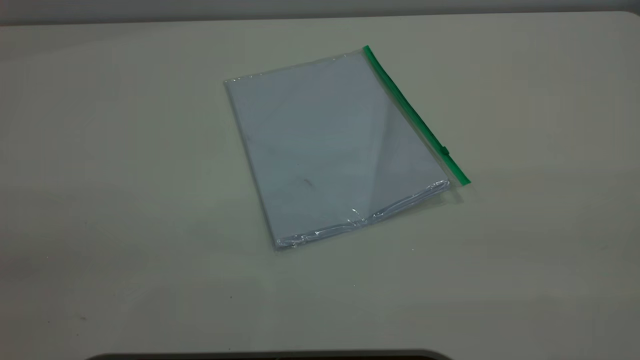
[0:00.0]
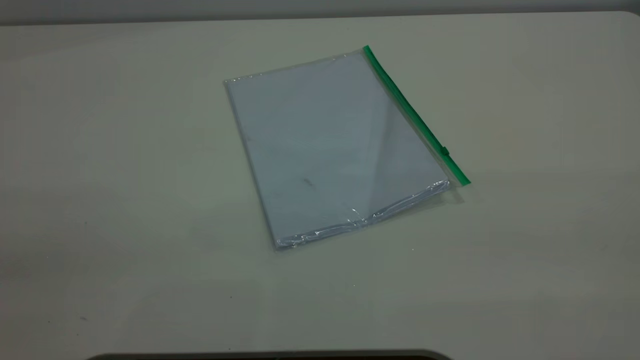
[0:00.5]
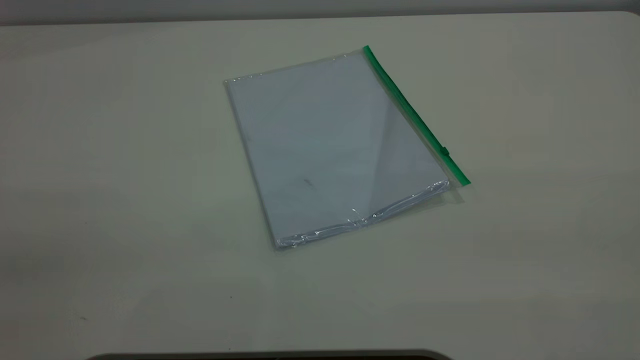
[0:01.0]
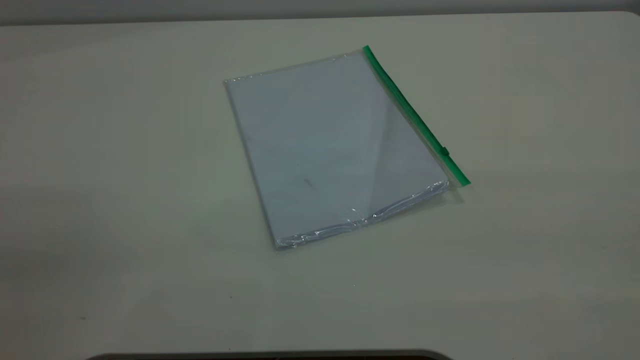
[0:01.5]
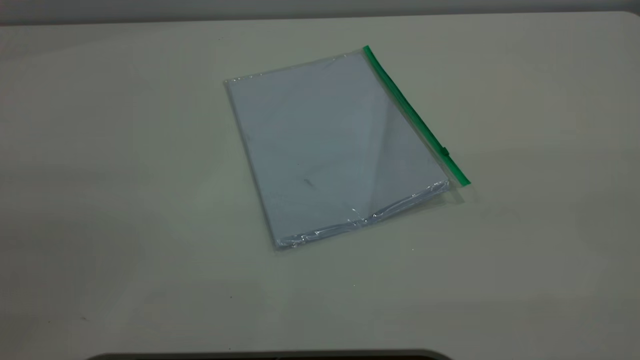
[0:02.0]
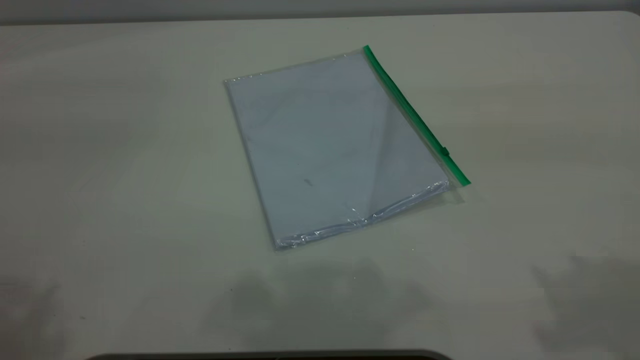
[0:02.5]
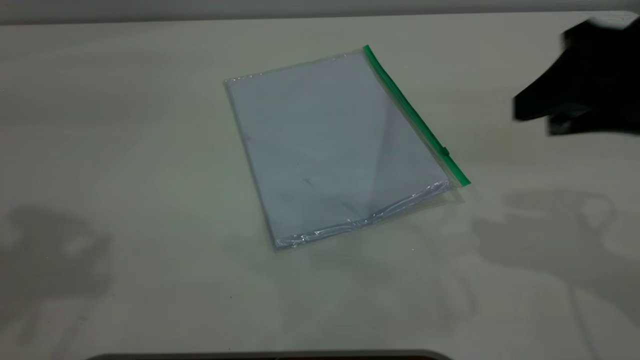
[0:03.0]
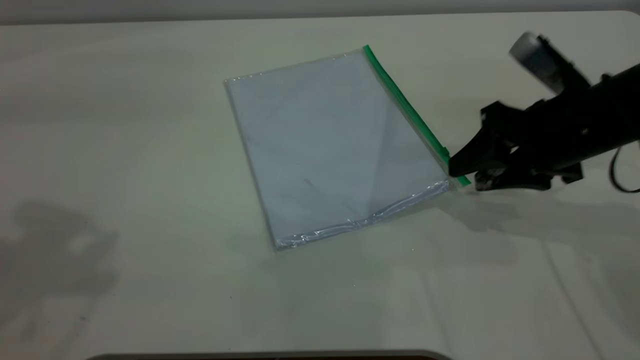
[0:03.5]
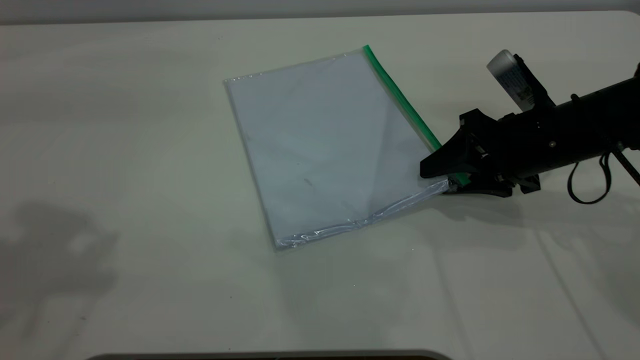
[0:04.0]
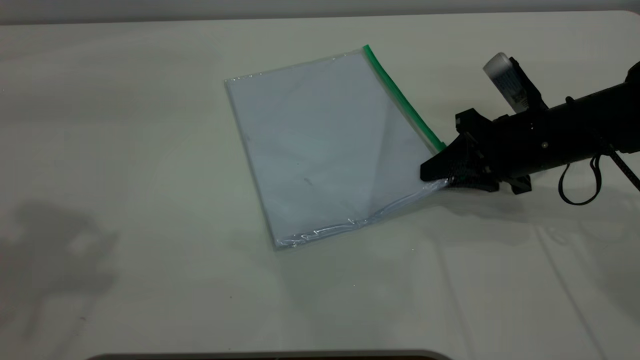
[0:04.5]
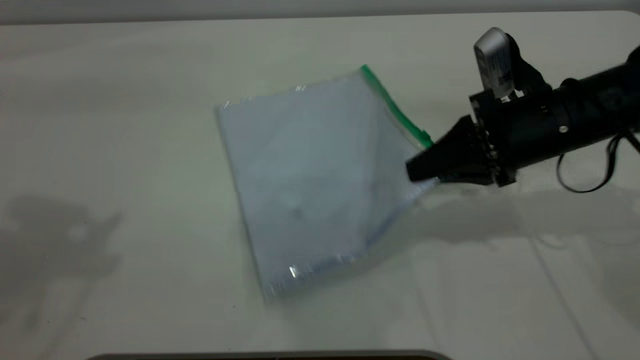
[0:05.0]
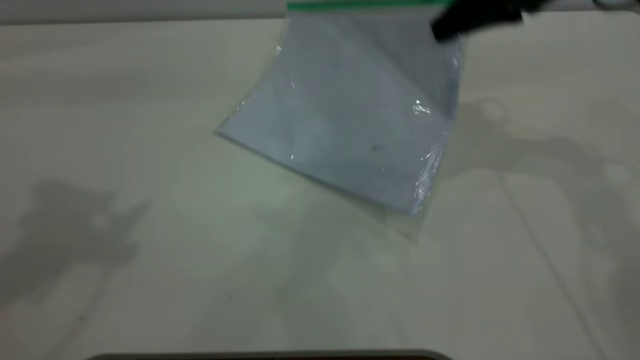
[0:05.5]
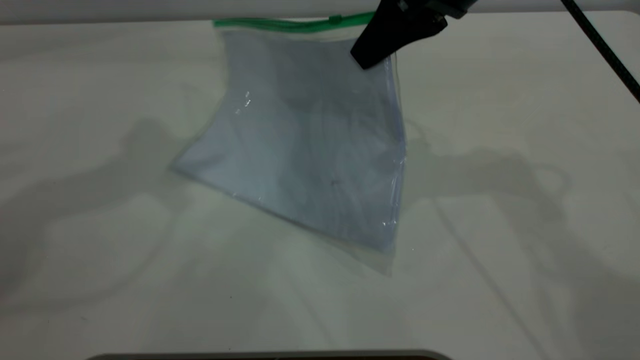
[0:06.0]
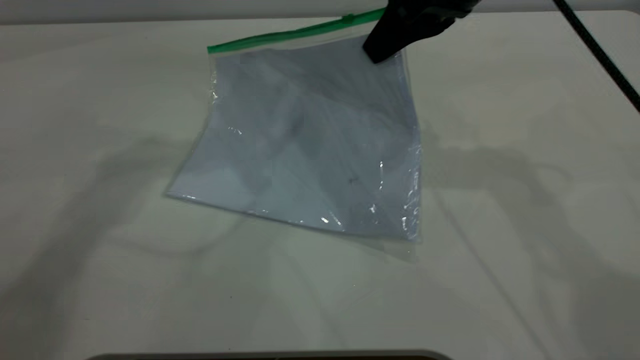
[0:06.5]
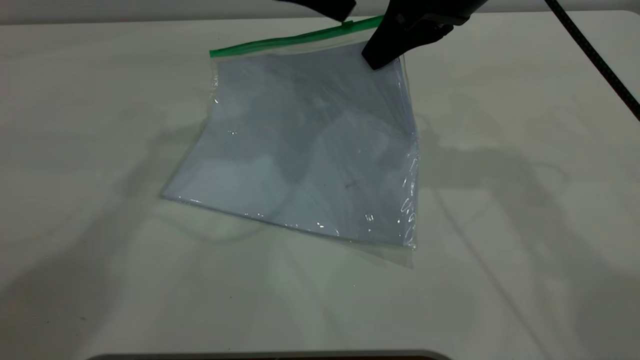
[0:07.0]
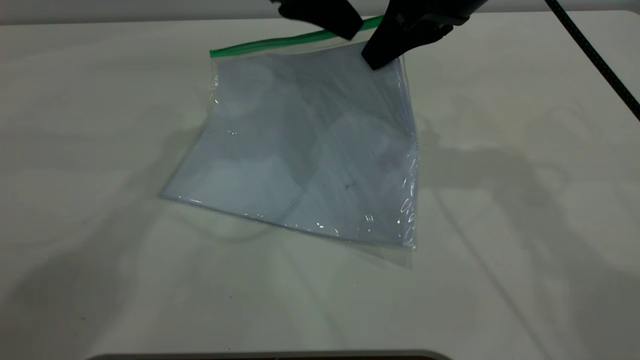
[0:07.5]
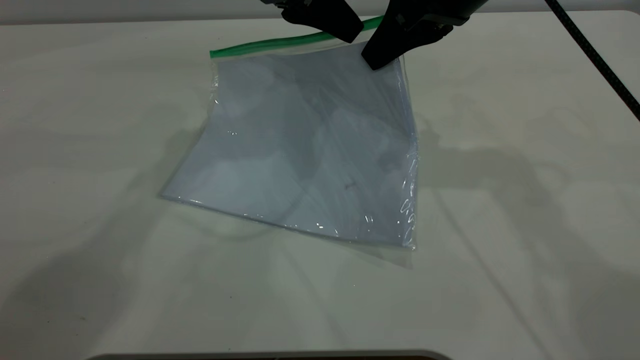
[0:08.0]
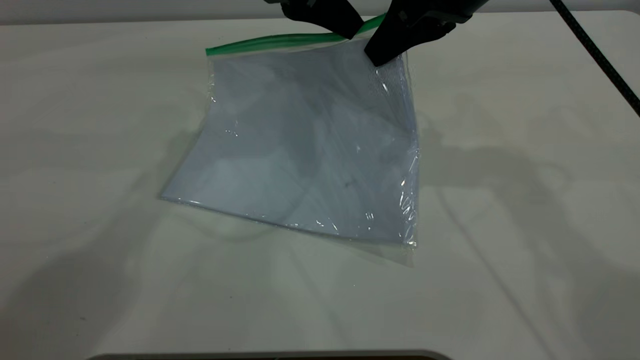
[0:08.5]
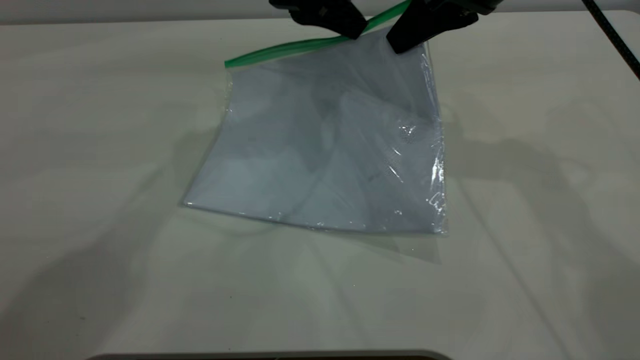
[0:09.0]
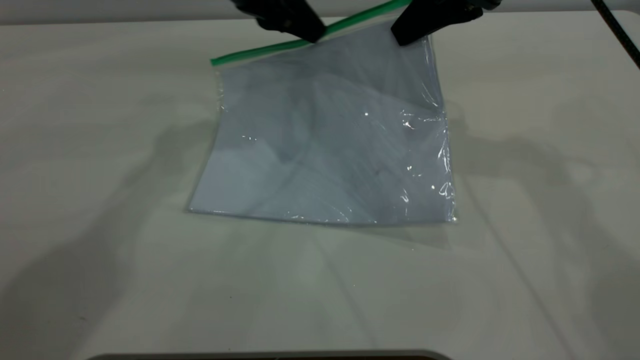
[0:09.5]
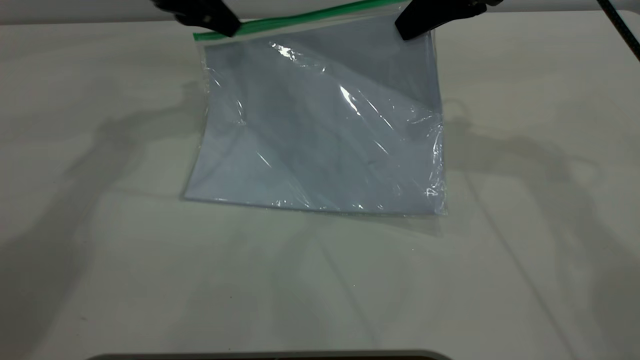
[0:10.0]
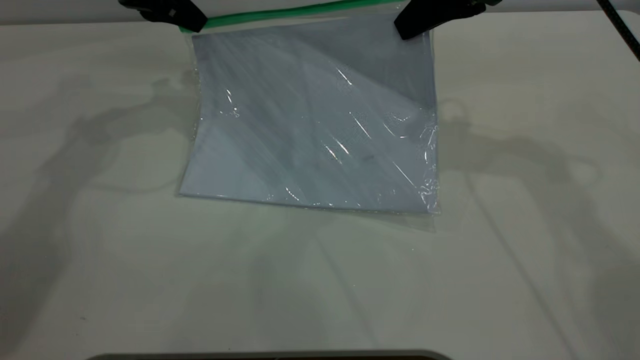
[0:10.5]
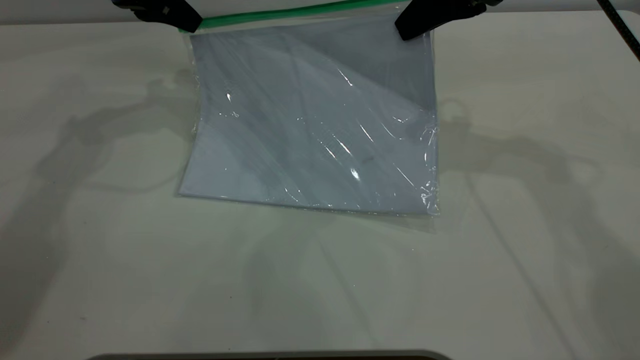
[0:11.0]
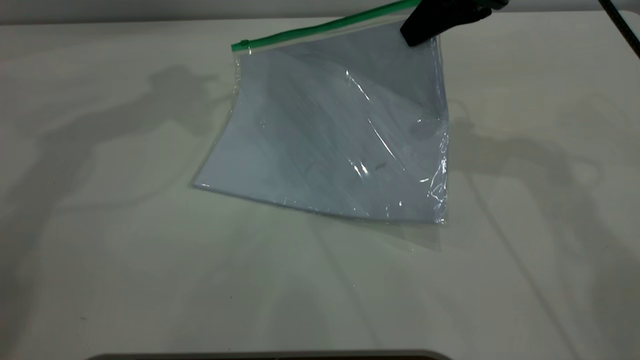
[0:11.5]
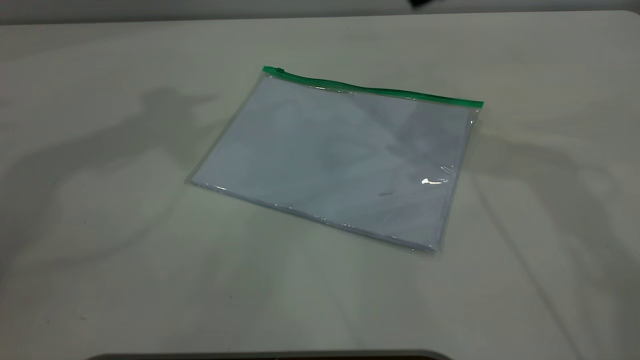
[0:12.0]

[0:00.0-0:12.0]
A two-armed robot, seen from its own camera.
Step, 0:00.0 to 0:04.5: Pick up the transparent plastic bag with the right gripper.
Step, 0:05.0 to 0:11.0: Pulling up the zipper on the transparent plastic bag with the left gripper to close it.
0:02.0 to 0:04.0: The right gripper travels downward and forward by about 40 cm.
0:04.0 to 0:06.0: The right gripper moves upward and to the left, roughly 20 cm, and closes up; the left gripper shifts roughly 15 cm forward and to the right.
0:06.0 to 0:08.0: The left gripper travels to the right, downward and forward by roughly 20 cm, and closes up.
0:08.0 to 0:10.0: The left gripper is displaced to the left and forward by roughly 15 cm, and closes its fingers.
0:10.0 to 0:12.0: The right gripper shifts some 5 cm upward, and opens up. The left gripper shifts about 25 cm upward, and opens.

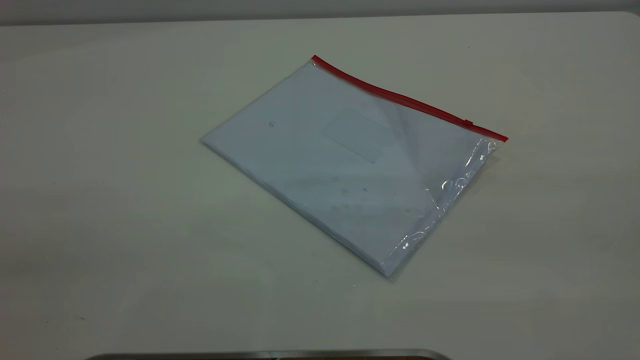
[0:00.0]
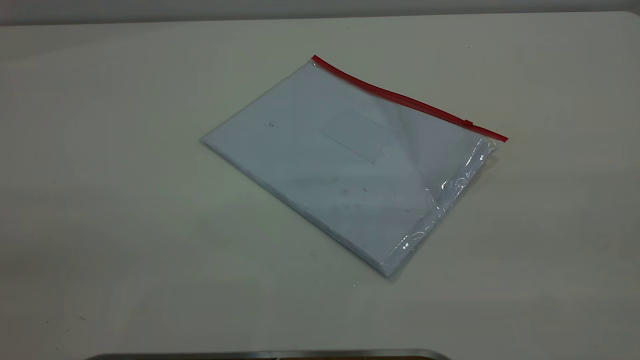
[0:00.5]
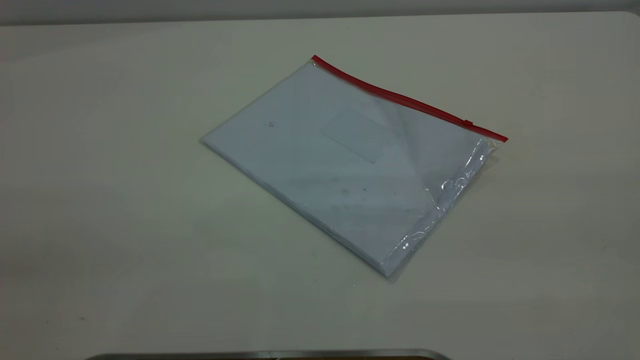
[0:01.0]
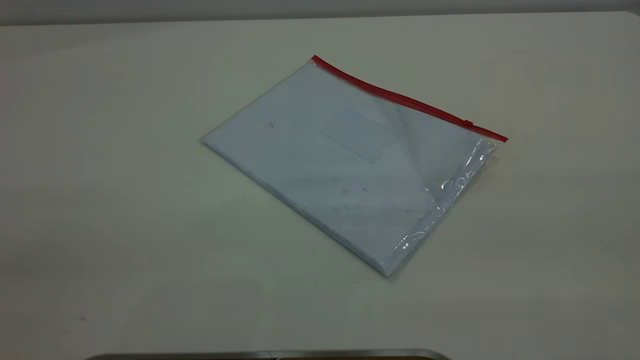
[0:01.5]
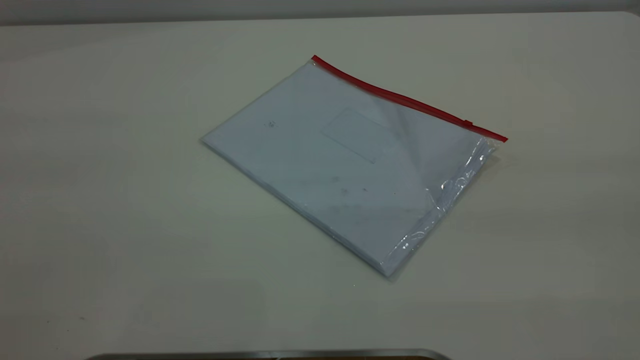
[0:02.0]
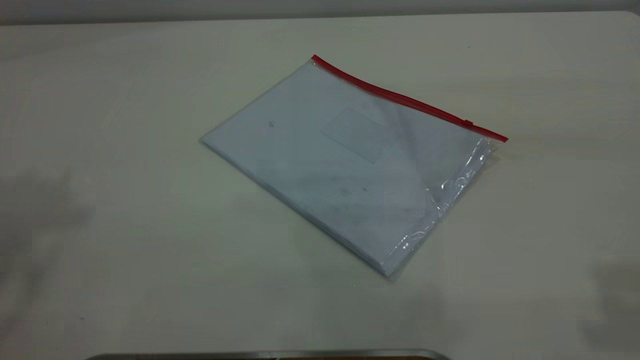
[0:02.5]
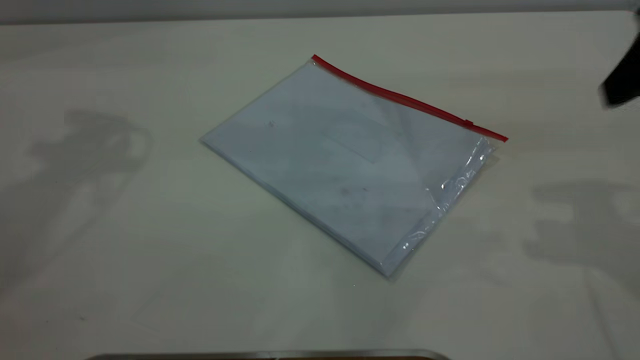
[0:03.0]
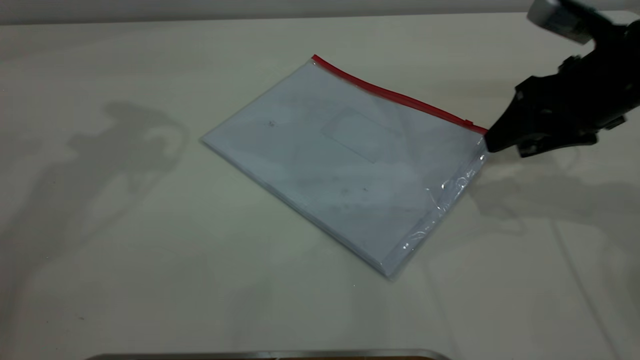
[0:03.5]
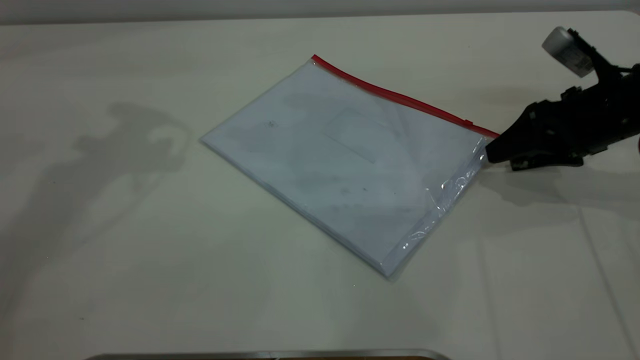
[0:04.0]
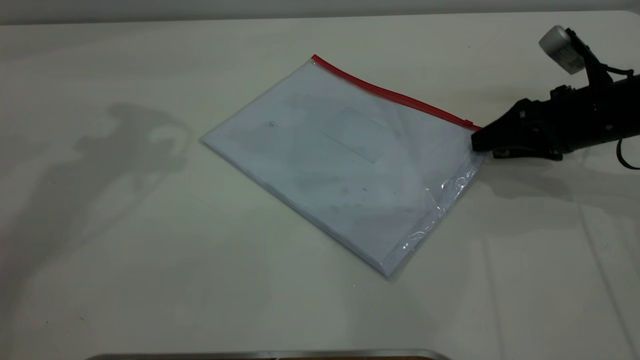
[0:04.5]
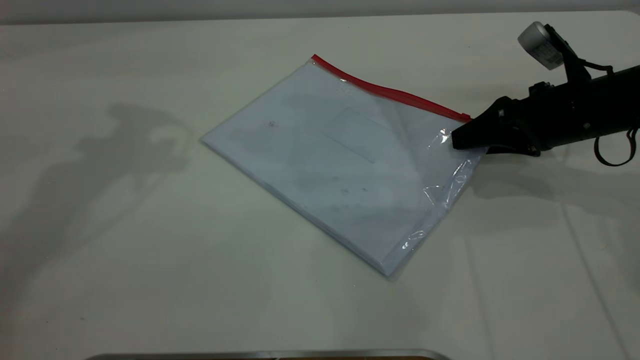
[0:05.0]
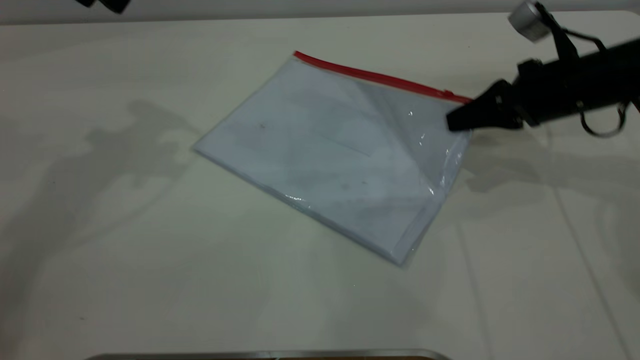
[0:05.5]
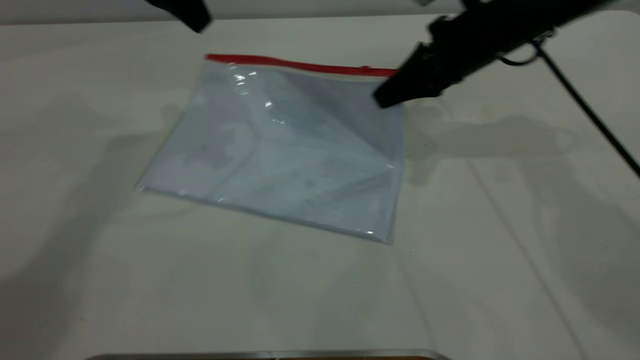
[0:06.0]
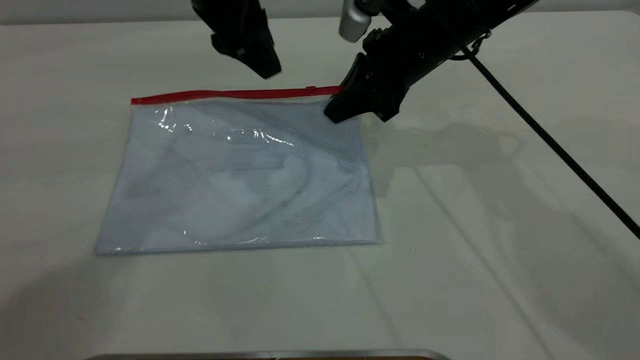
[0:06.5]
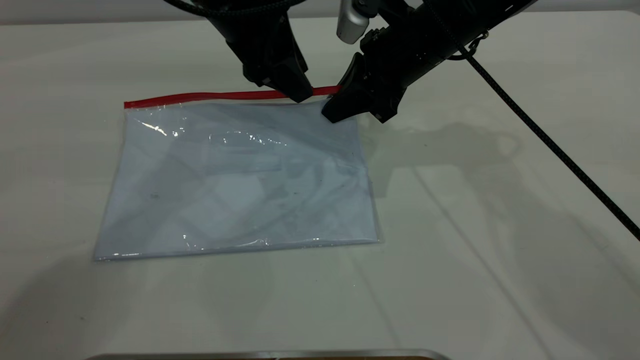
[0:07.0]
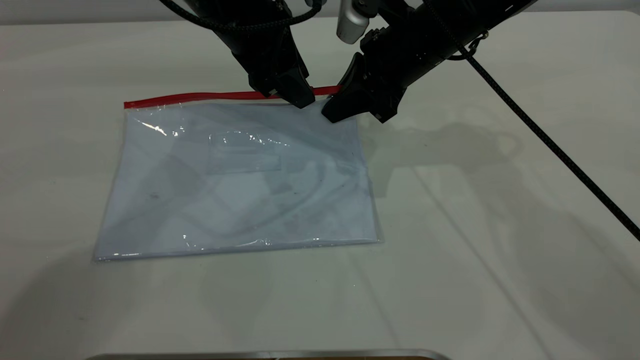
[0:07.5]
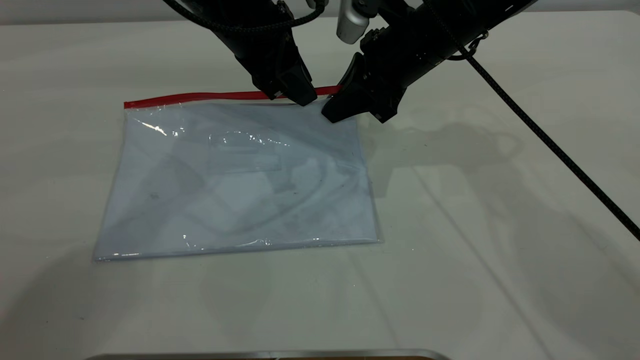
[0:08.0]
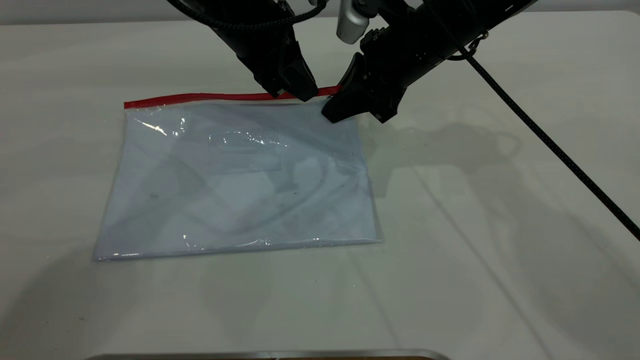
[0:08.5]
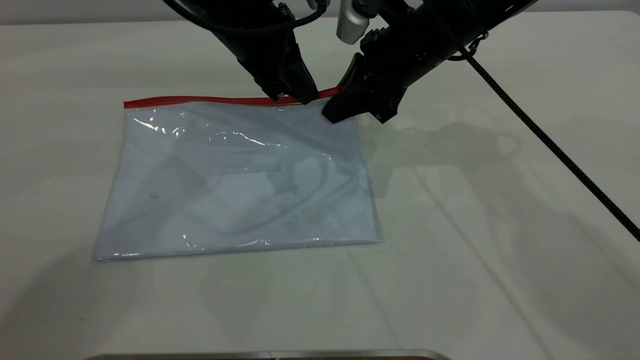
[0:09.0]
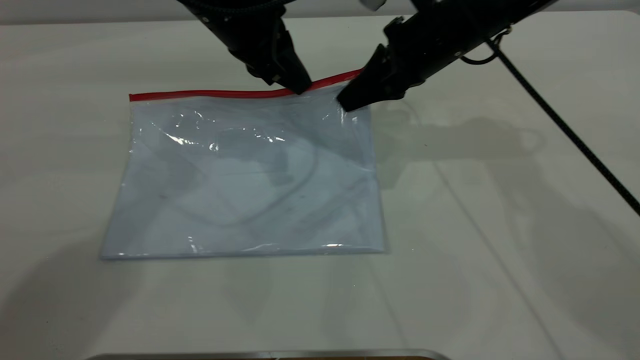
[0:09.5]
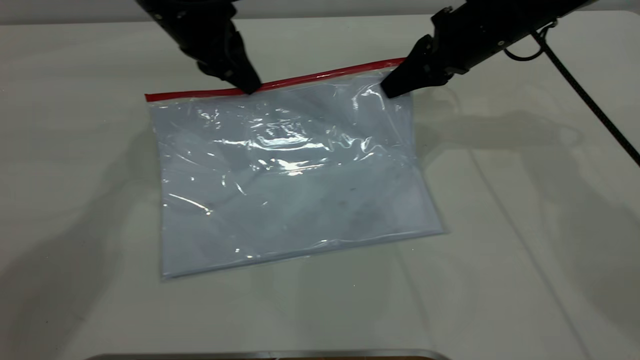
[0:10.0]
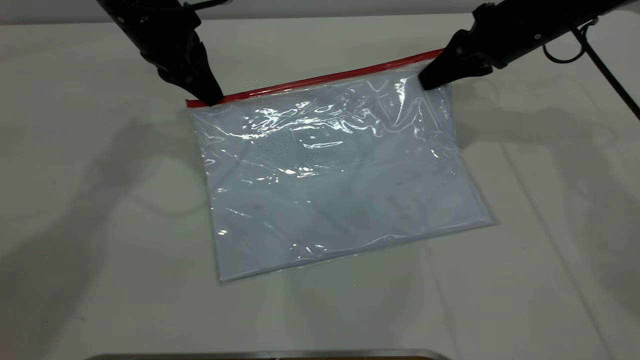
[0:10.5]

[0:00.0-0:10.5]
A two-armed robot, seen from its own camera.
Step, 0:00.0 to 0:06.0: Pick up the transparent plastic bag with the right gripper.
0:02.0 to 0:04.0: The right gripper heads forward and downward, covering approximately 50 cm.
0:04.0 to 0:06.5: The left gripper travels to the right and downward by approximately 15 cm. Meanwhile the right gripper goes some 20 cm to the left, and closes.
0:06.5 to 0:08.5: The left gripper travels downward by about 5 cm, and closes.
0:08.5 to 0:10.5: The left gripper travels to the left by roughly 10 cm; the right gripper moves to the right, some 15 cm.
